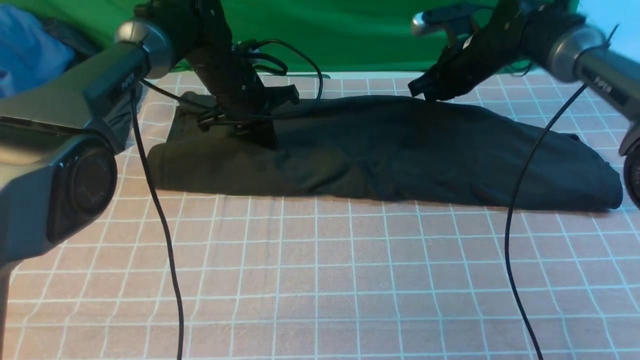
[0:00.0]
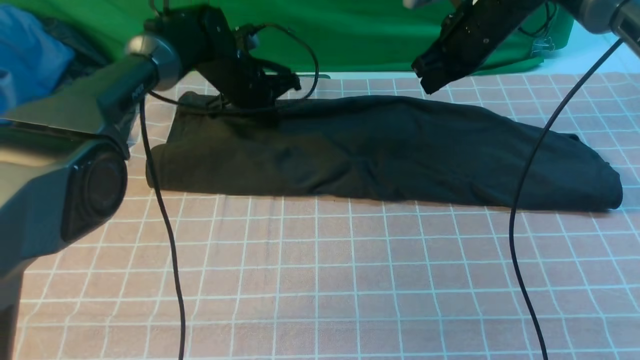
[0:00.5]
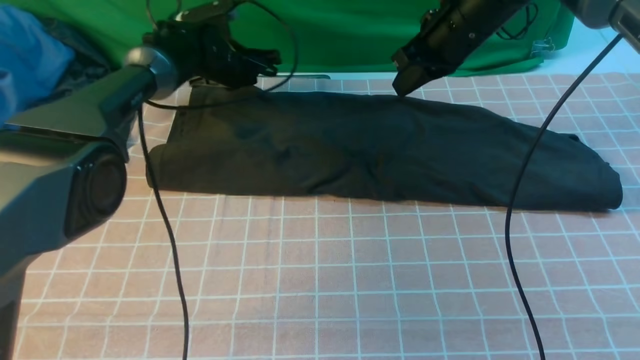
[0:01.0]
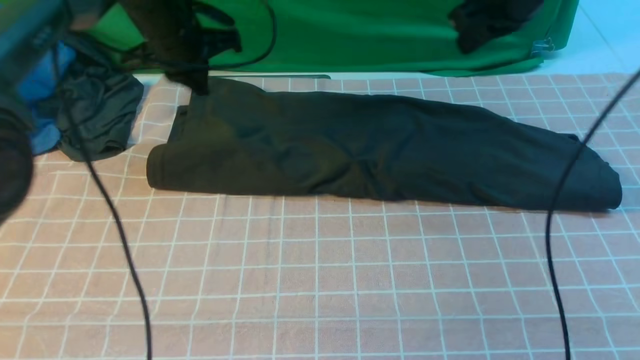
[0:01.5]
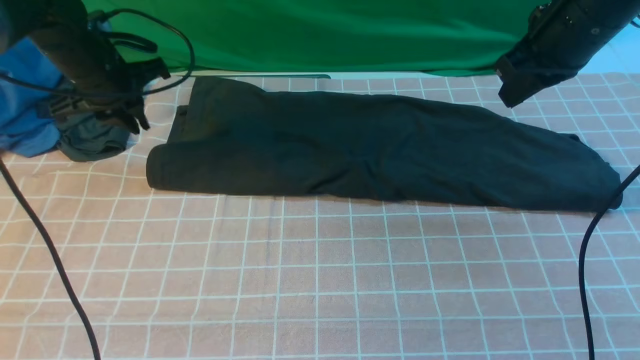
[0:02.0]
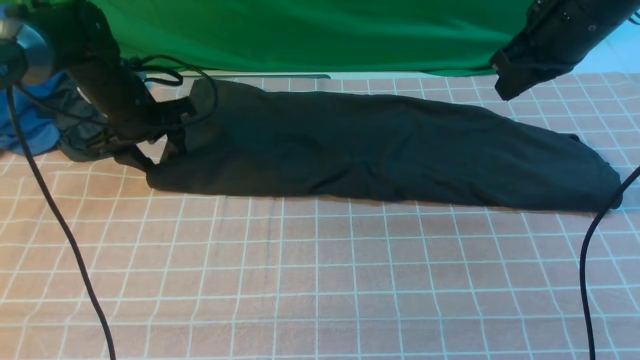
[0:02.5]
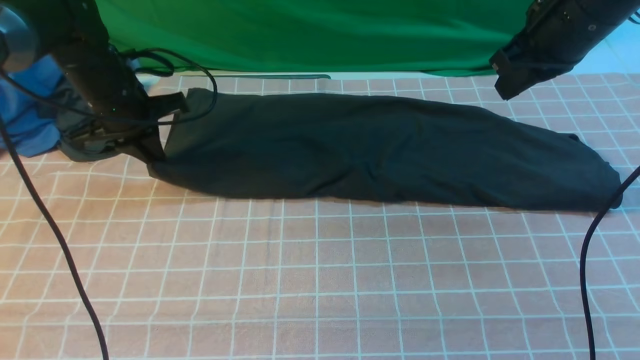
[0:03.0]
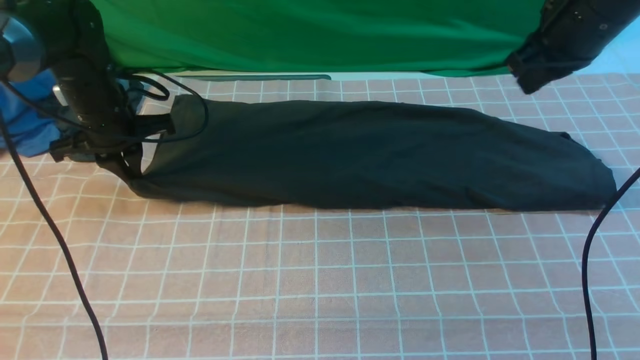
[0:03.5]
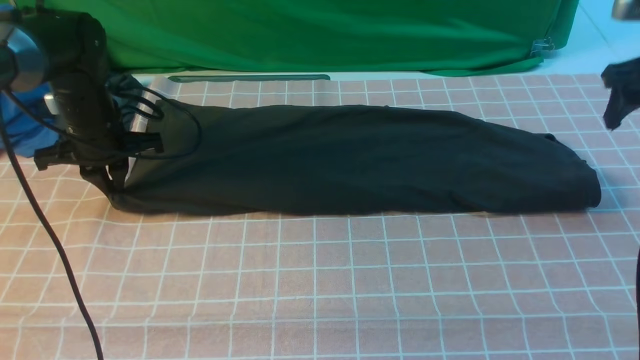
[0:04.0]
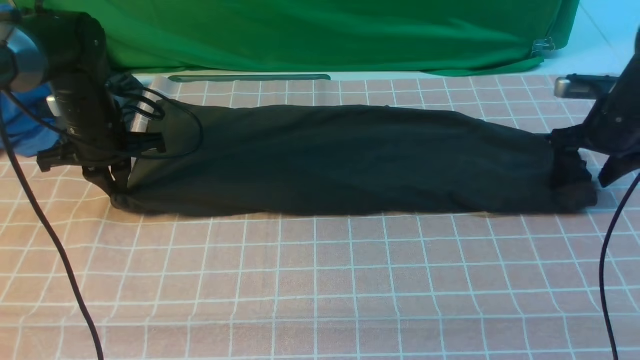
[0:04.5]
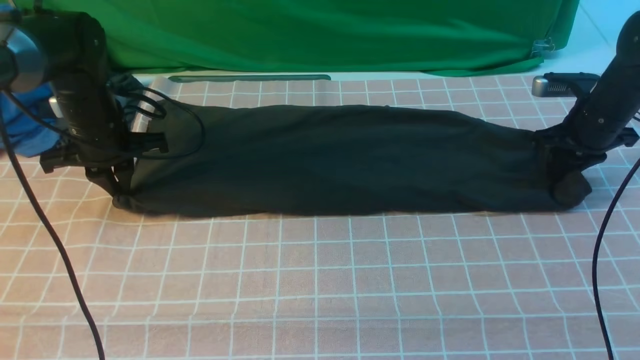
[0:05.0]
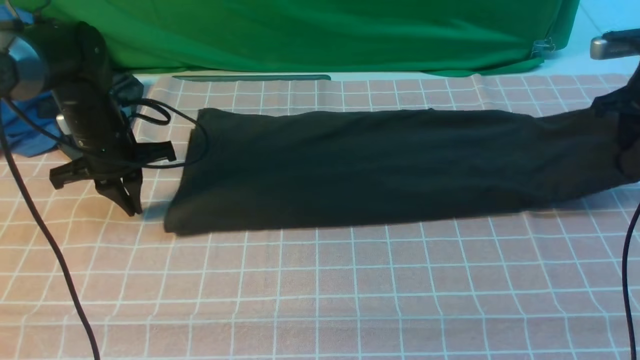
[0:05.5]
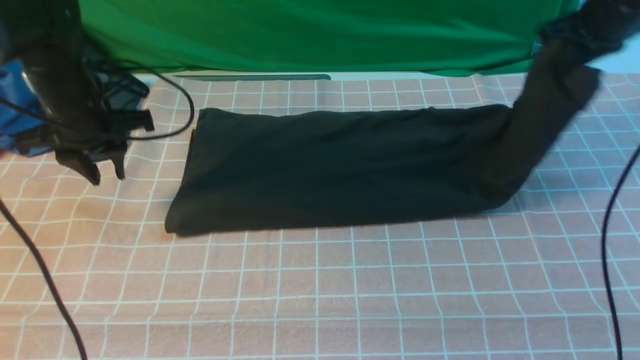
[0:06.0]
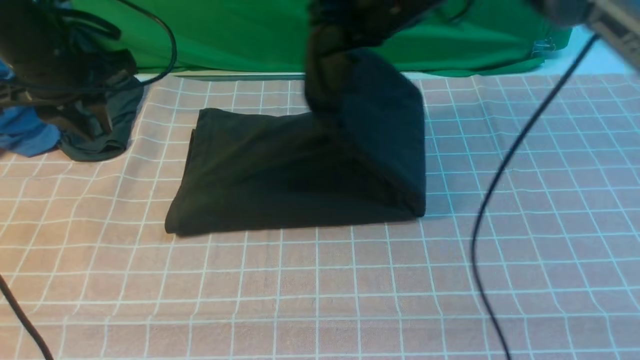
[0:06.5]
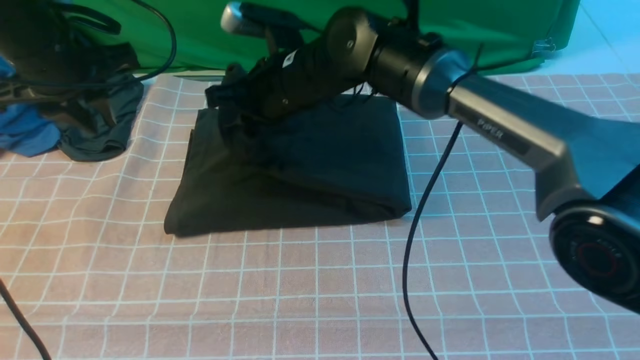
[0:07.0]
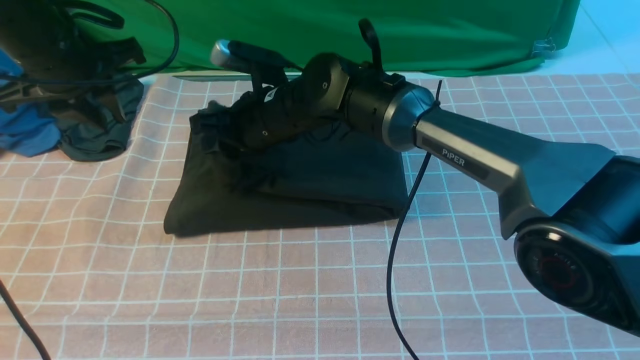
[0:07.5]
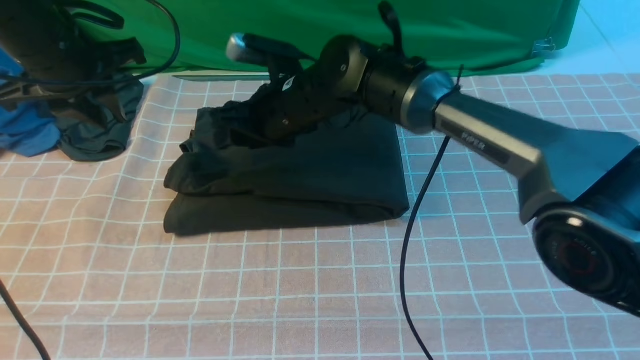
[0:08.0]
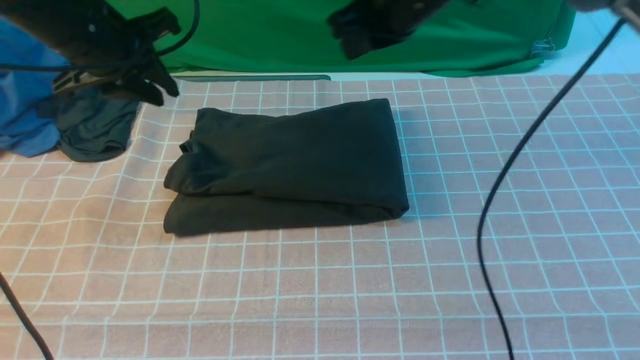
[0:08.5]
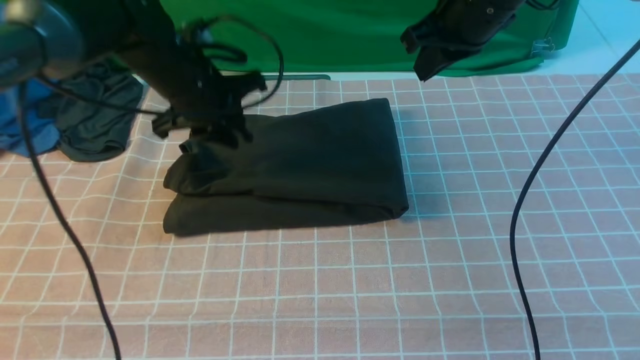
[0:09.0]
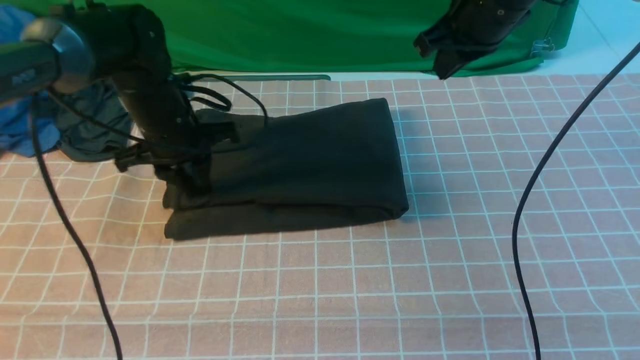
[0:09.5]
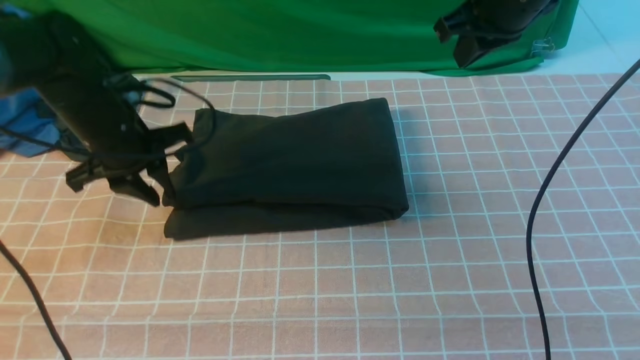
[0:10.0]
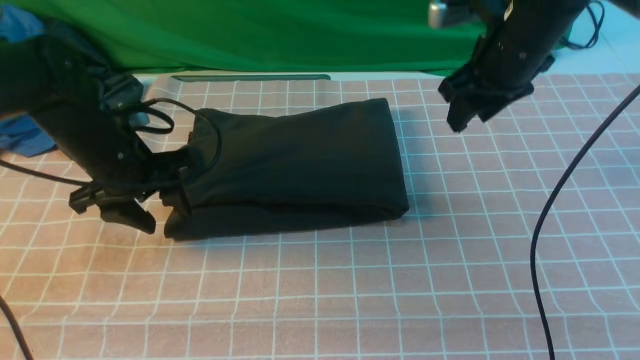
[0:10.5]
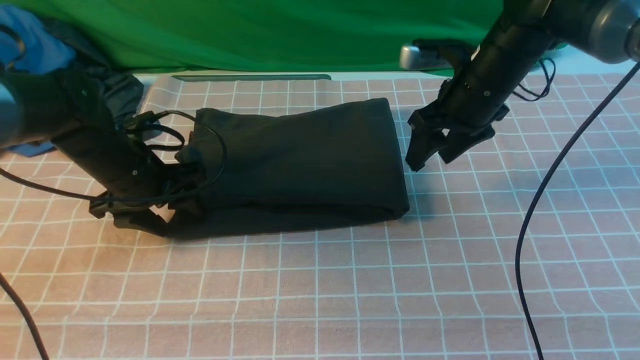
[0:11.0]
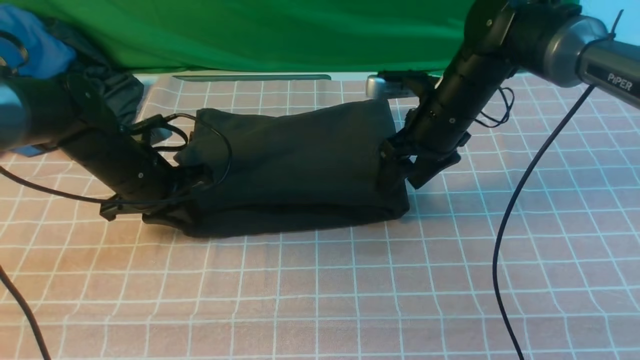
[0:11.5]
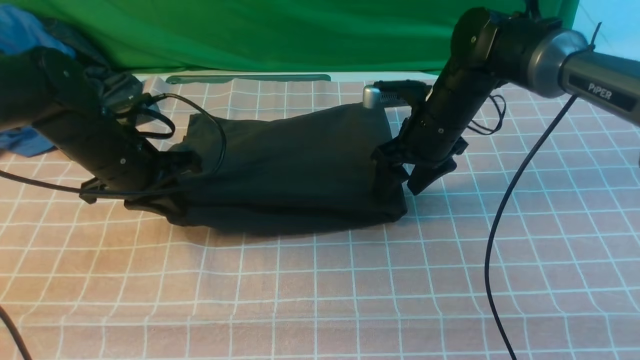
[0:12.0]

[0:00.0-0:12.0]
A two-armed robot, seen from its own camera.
Step, 0:00.0 to 0:05.0: use the right arm to clamp the right edge of the fabric.
Step, 0:05.5 to 0:08.0: use the right arm to drag the right edge of the fabric to the left and folds it over the left edge.
0:00.0 to 0:02.0: The left gripper moves to the left, approximately 15 cm, and opens its fingers, while the right gripper is displaced backward and upward by approximately 20 cm.
0:02.0 to 0:04.0: The right gripper travels to the right and downward by roughly 15 cm, and opens its fingers; the left gripper moves roughly 5 cm, and closes up.
0:04.0 to 0:06.0: The left gripper moves upward, approximately 5 cm, and opens up, while the right gripper travels to the left by roughly 10 cm, moves some 10 cm downward and comes back, and closes its fingers.
0:06.0 to 0:08.0: The left gripper shifts approximately 5 cm upward. Meanwhile the right gripper travels to the left by approximately 30 cm, and opens its fingers.
0:08.0 to 0:10.0: The right gripper moves to the right and upward, about 25 cm, and closes its fingers; the left gripper heads downward, covering approximately 10 cm.
0:10.0 to 0:12.0: The right gripper travels downward by approximately 15 cm, and opens its fingers. Meanwhile the left gripper opens, then closes once more.

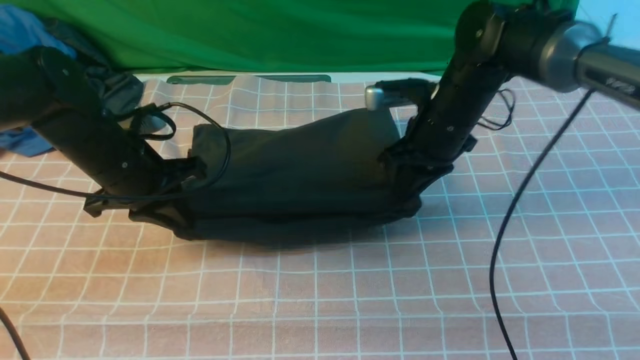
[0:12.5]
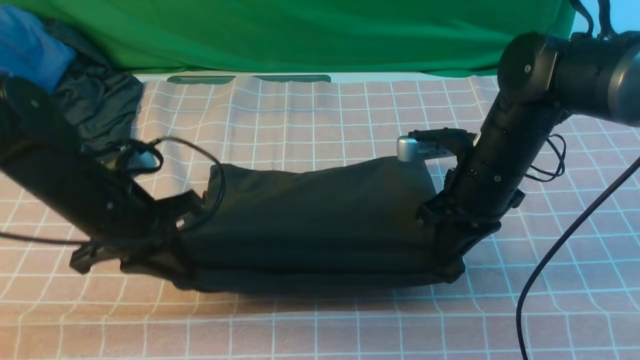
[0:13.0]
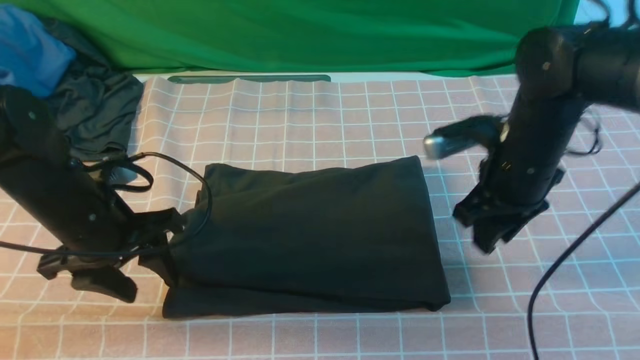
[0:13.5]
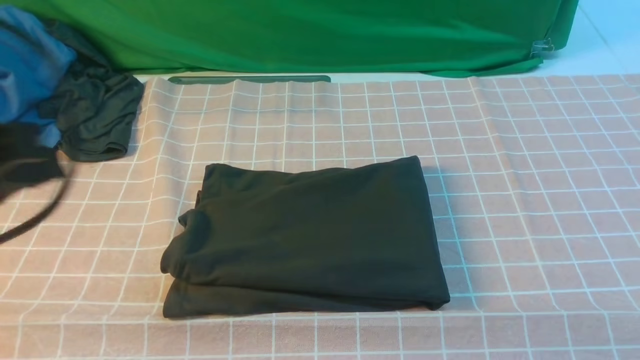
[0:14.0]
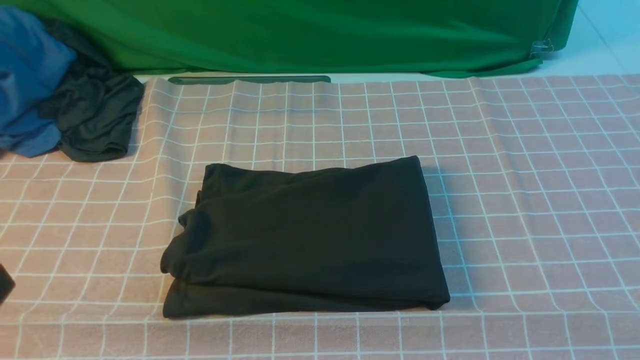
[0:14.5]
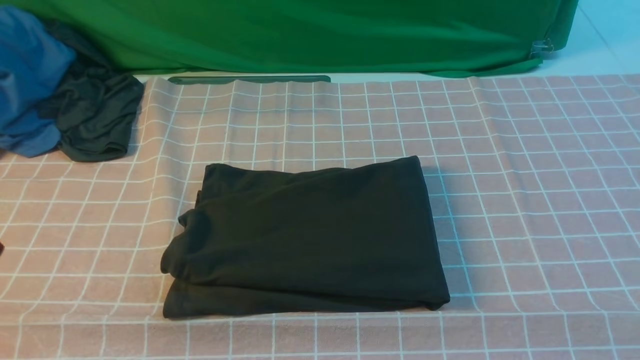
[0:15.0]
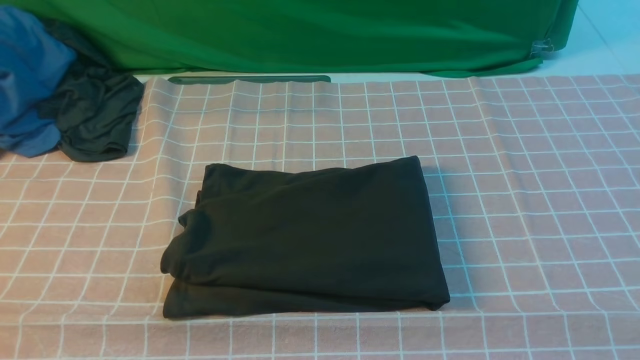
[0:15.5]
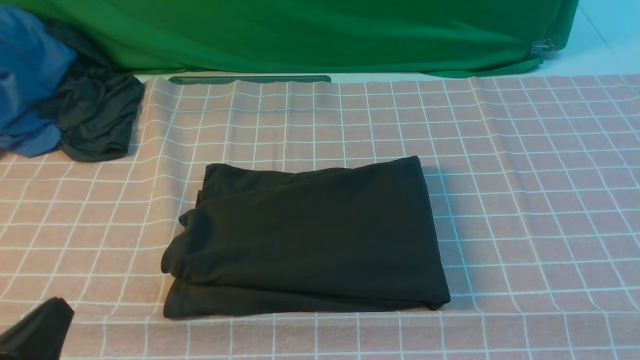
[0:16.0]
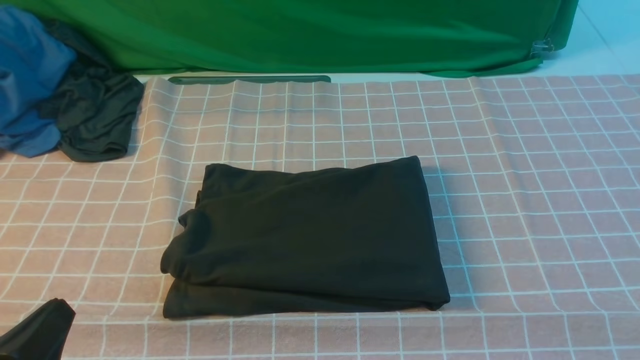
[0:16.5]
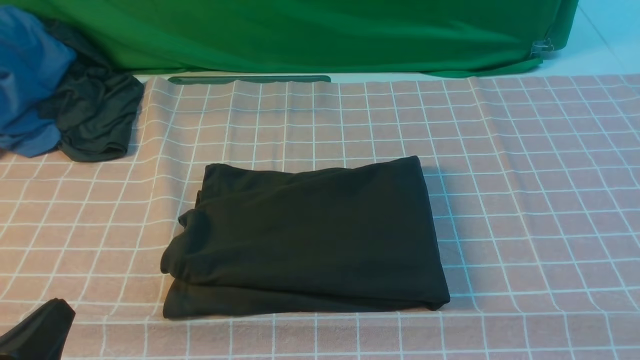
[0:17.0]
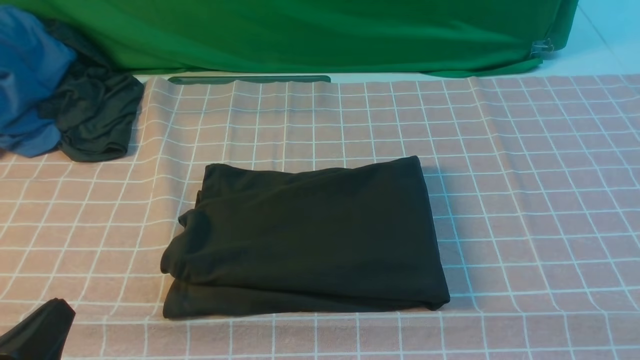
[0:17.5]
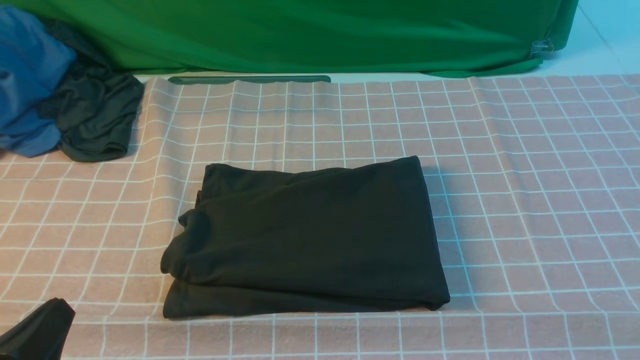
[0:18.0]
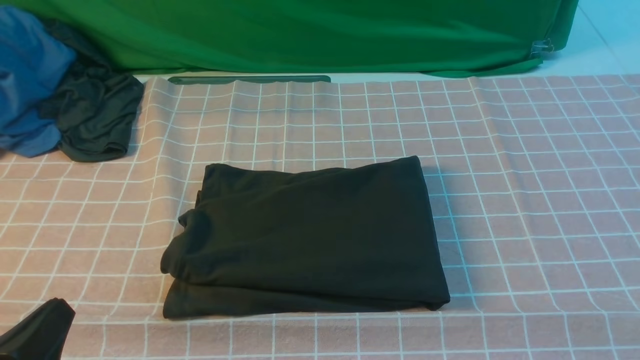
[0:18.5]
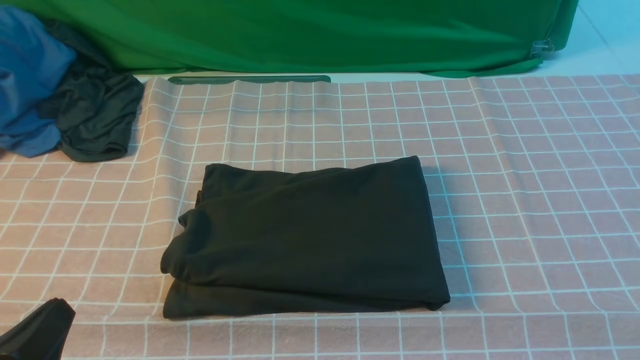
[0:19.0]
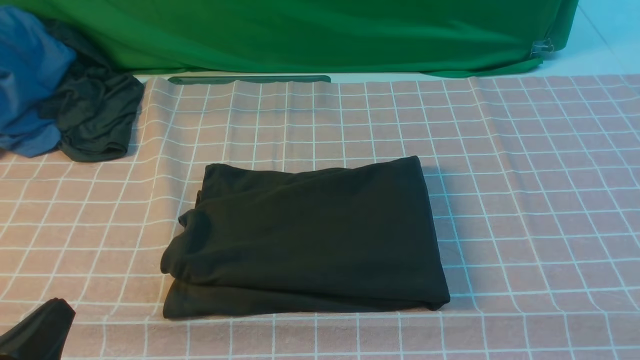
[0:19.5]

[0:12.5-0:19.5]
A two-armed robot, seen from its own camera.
0:12.5 to 0:14.5: The left gripper goes roughly 30 cm backward, and opens, then closes once more, while the right gripper goes some 40 cm backward, to the right and upward.
0:14.5 to 0:16.0: The left gripper moves downward, approximately 10 cm.

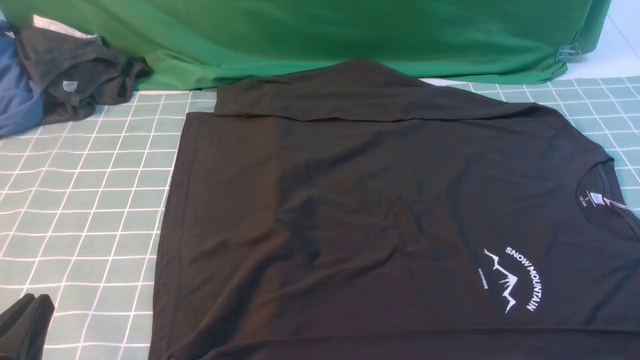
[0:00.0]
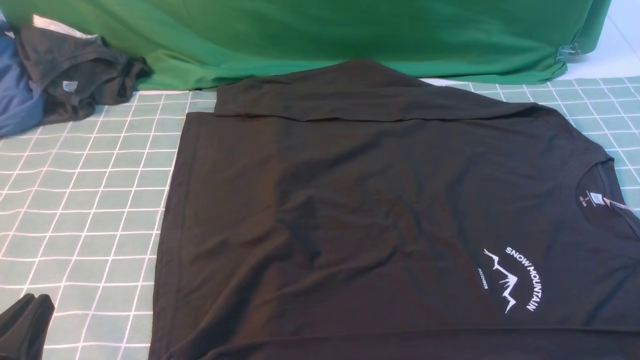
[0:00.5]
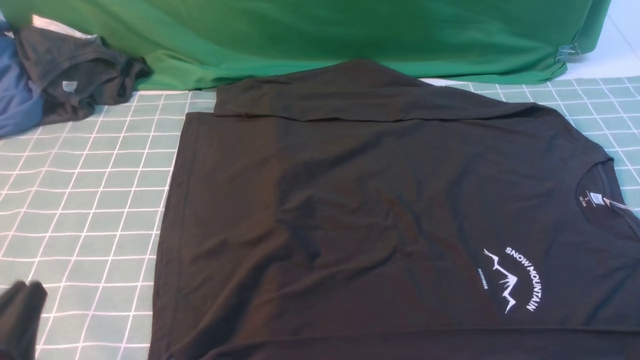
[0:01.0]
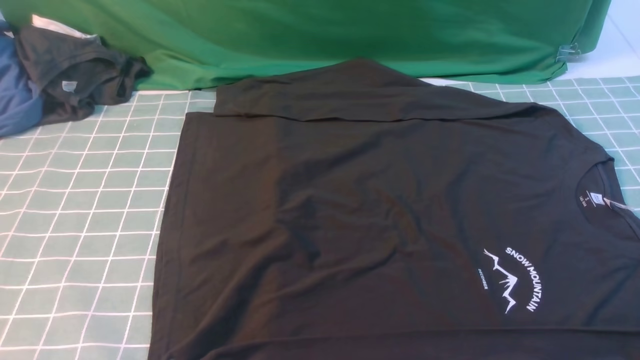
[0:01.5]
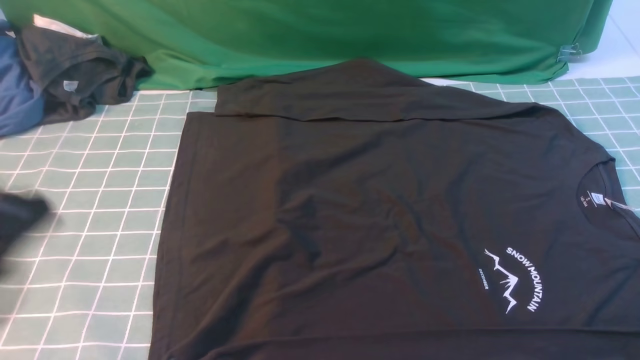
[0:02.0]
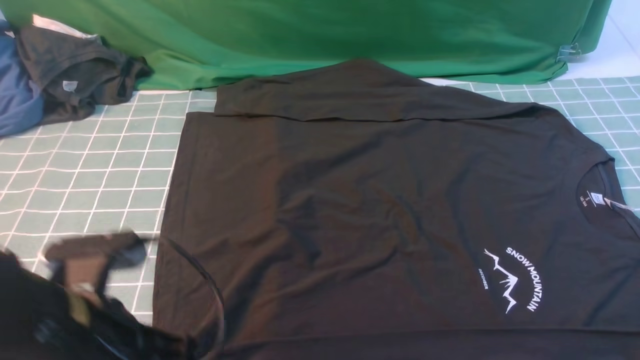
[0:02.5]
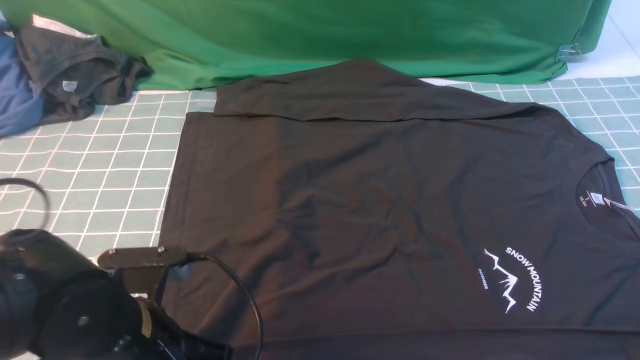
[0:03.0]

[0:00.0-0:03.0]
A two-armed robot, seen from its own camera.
0:00.0 to 0:01.5: The left gripper shifts about 10 cm upward.
0:01.5 to 0:03.0: The left gripper is displaced forward, to the right and downward by about 20 cm.
